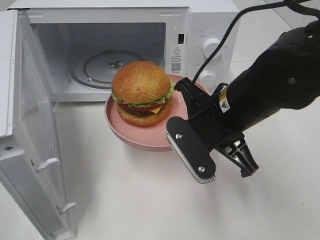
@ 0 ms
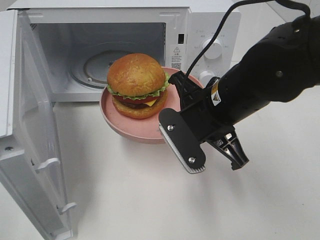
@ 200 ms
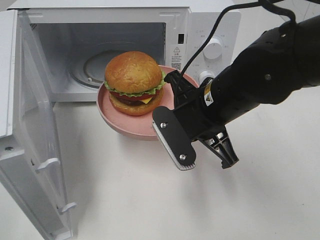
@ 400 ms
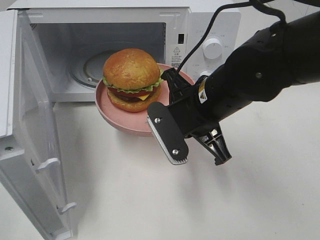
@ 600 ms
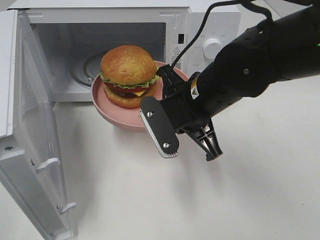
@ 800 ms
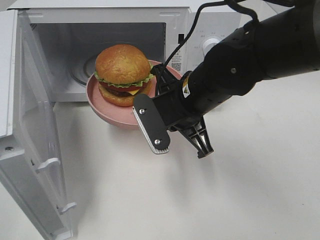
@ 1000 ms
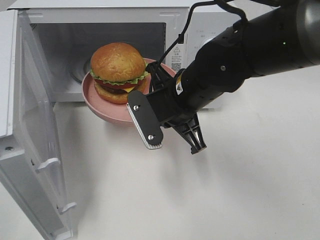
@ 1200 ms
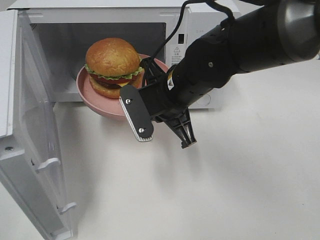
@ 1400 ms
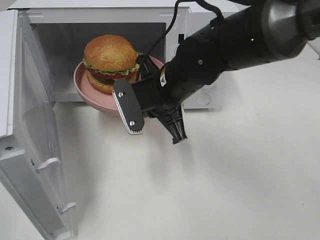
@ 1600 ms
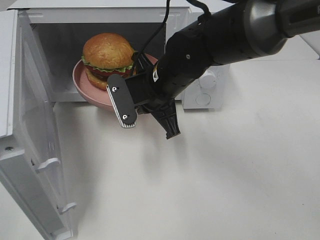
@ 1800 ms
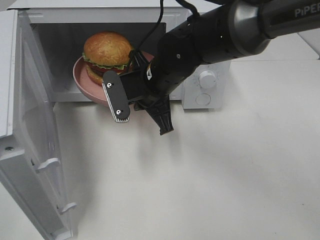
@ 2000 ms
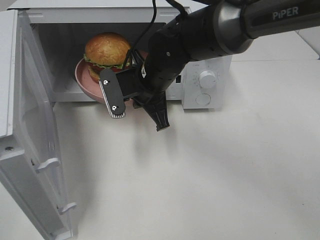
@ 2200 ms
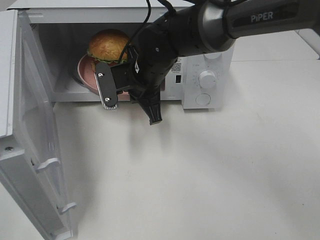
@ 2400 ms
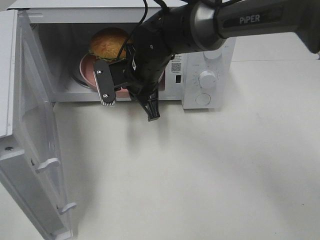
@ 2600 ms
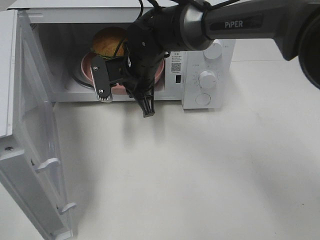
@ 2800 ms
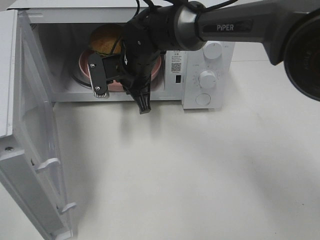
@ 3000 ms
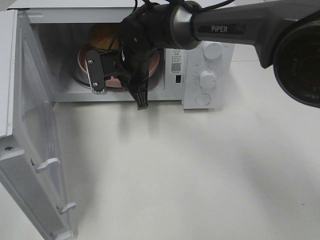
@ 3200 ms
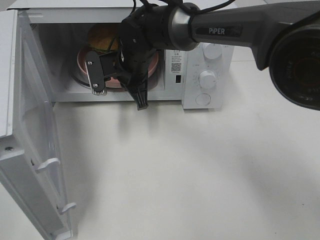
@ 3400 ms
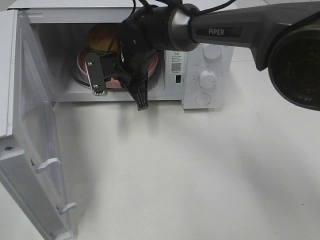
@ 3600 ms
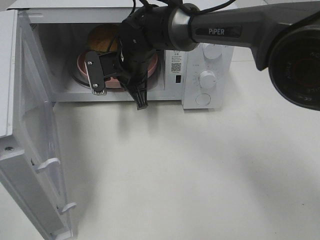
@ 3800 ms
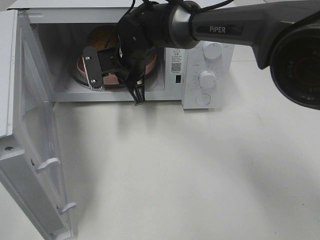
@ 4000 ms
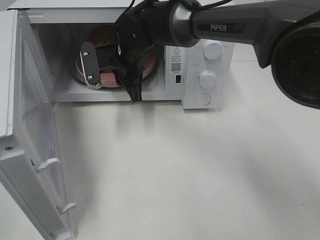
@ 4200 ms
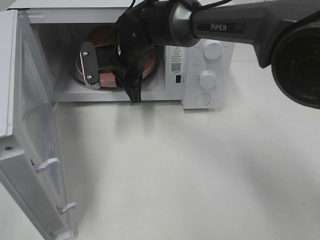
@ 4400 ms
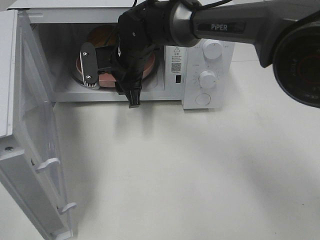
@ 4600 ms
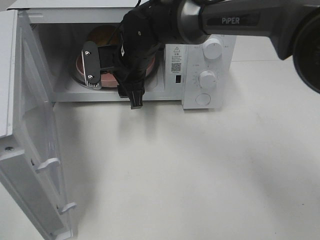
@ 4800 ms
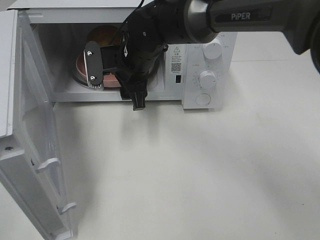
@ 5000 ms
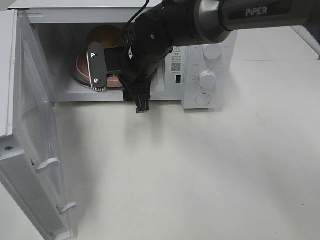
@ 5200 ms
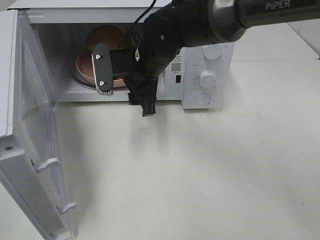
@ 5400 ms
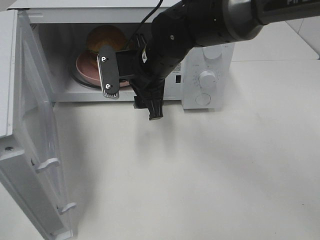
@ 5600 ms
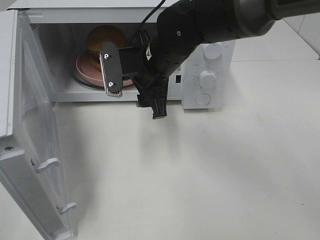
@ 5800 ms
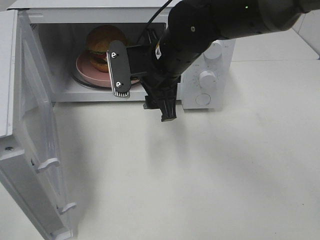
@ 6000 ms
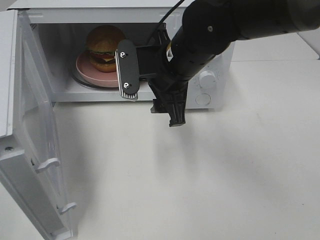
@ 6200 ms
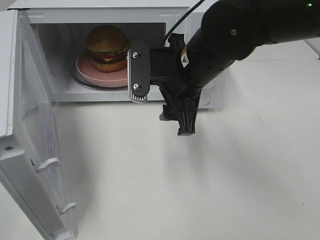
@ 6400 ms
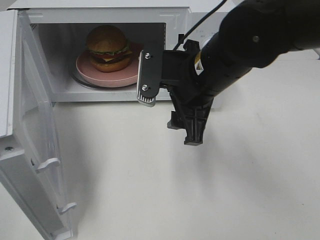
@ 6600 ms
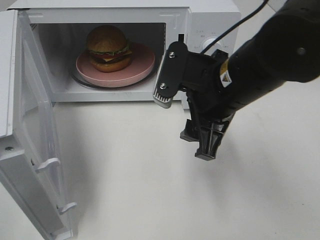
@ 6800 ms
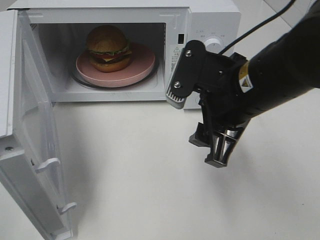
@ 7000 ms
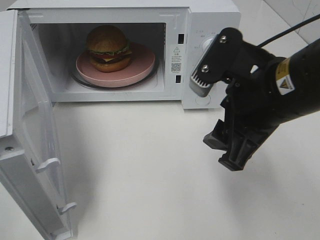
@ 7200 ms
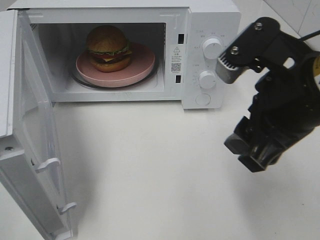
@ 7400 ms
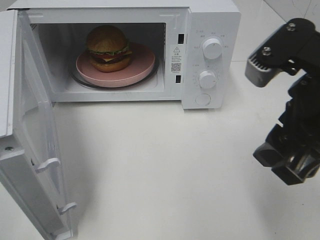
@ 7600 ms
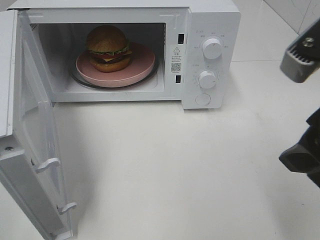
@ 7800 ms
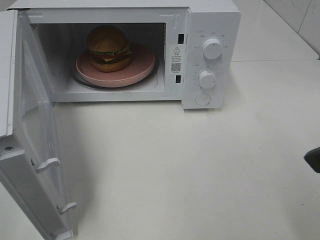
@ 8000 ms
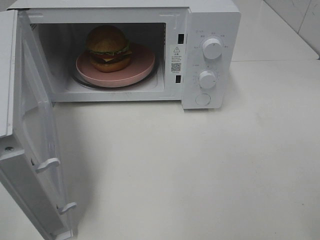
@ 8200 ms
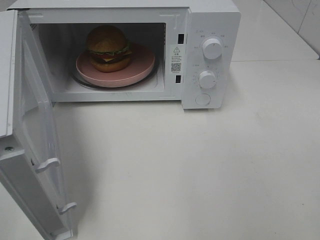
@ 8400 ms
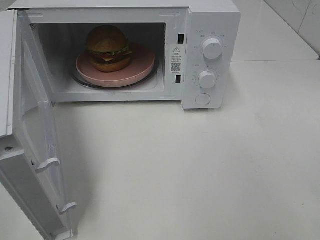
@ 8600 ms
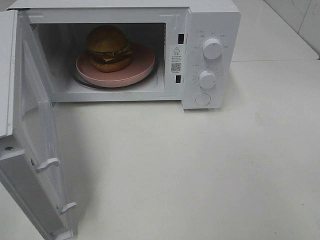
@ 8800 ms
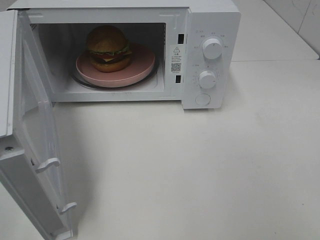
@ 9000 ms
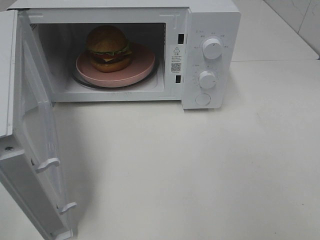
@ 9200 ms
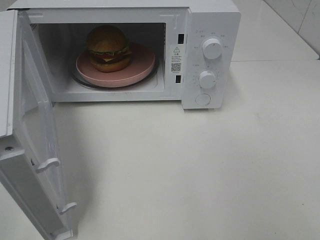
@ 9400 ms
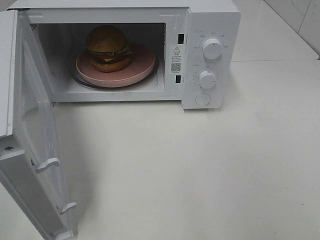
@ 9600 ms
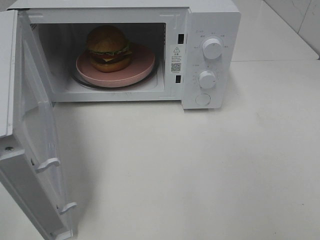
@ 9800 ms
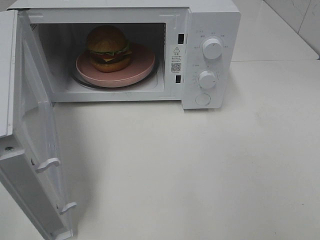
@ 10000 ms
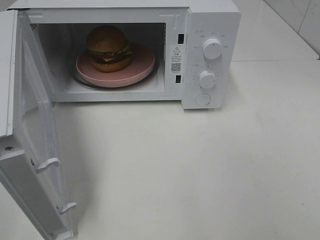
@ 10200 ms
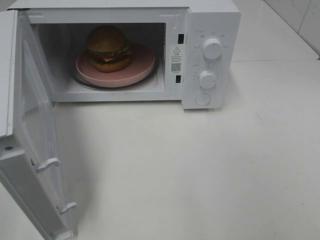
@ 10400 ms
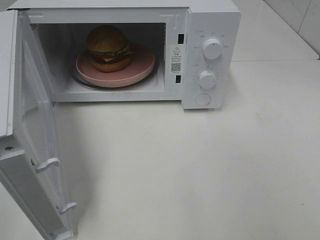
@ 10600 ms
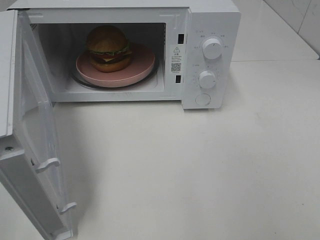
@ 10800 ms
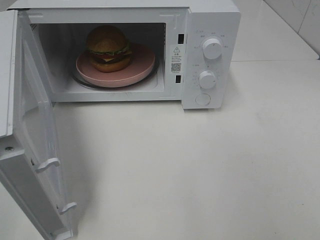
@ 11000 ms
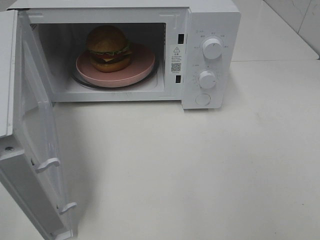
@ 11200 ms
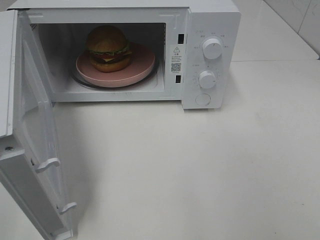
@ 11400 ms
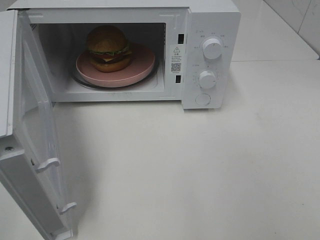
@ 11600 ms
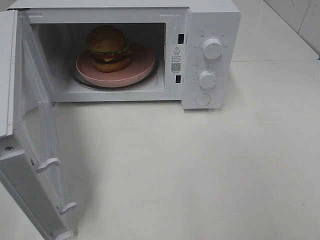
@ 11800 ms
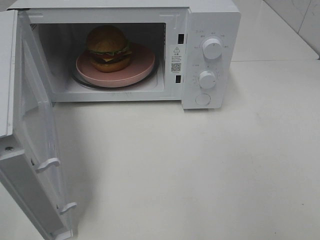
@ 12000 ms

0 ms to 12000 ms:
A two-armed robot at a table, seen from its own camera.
Task of the whole recording: Heat the burger.
Step, 0 ms to 4200 ms: Right hand: place the plate in the microwave.
0 ms to 1600 ms: The right gripper shifts some 10 cm forward and to the left.
1600 ms to 3000 ms: The right gripper heads forward and to the left, covering about 10 cm.
3000 ms to 4400 ms: The right gripper opens.
4400 ms to 6000 ms: The right gripper shifts approximately 10 cm backward and to the right, and opens.
6000 ms to 7600 ms: The right gripper is displaced backward, to the right and upward by about 25 cm.
7600 ms to 9000 ms: The right gripper shifts approximately 15 cm to the right and backward.
10400 ms to 12000 ms: Both grippers stay put.

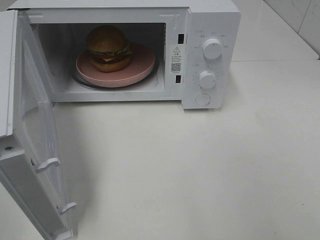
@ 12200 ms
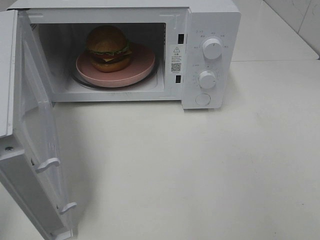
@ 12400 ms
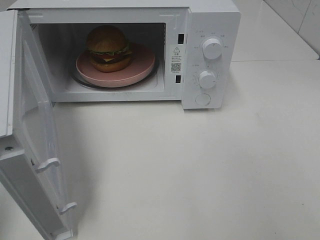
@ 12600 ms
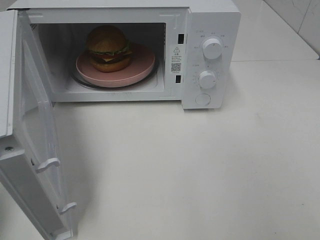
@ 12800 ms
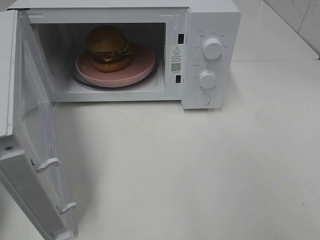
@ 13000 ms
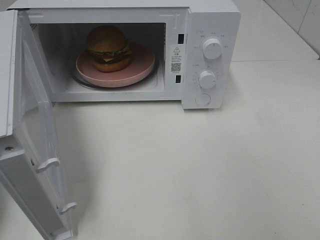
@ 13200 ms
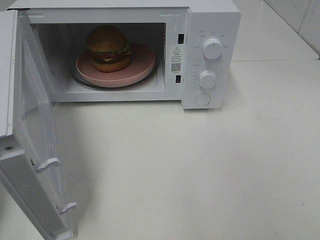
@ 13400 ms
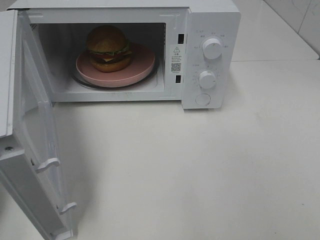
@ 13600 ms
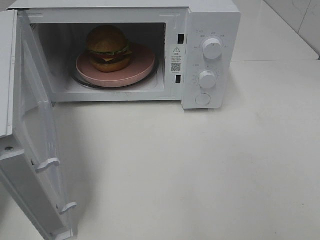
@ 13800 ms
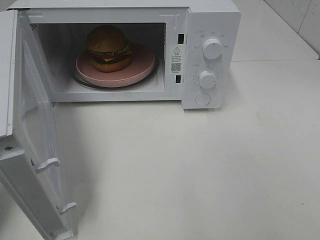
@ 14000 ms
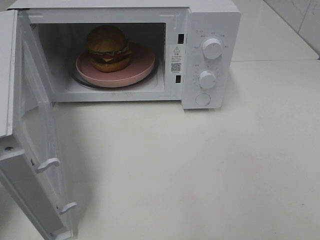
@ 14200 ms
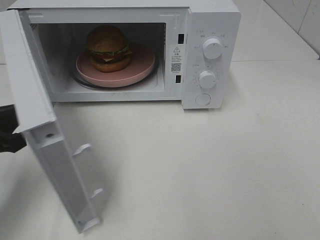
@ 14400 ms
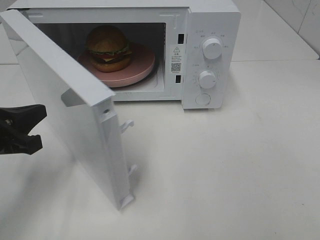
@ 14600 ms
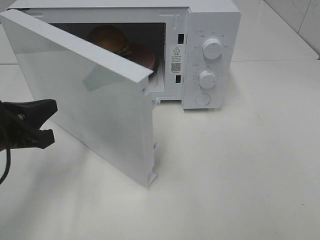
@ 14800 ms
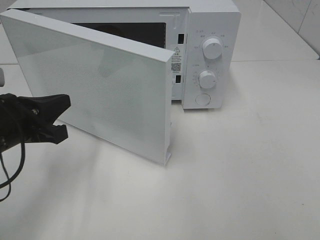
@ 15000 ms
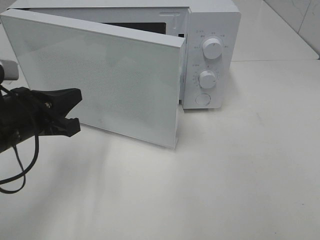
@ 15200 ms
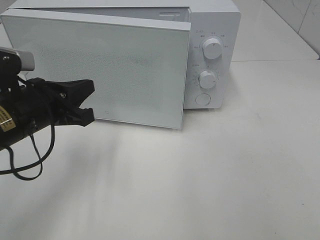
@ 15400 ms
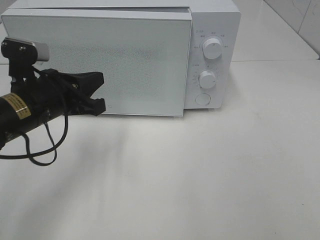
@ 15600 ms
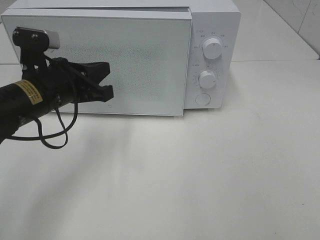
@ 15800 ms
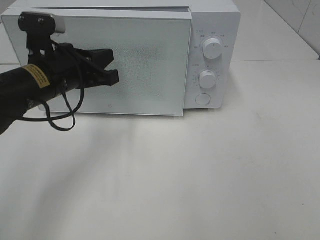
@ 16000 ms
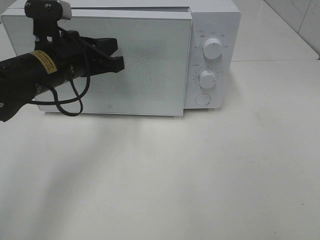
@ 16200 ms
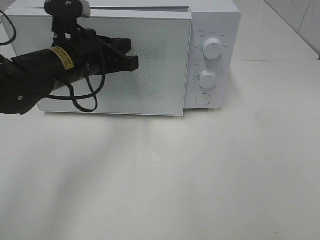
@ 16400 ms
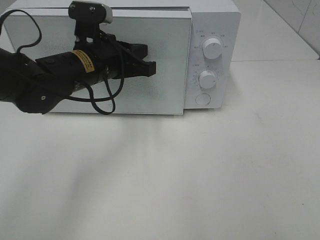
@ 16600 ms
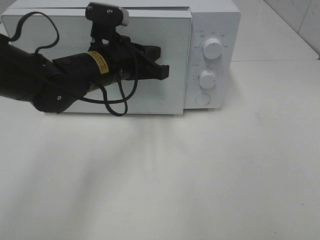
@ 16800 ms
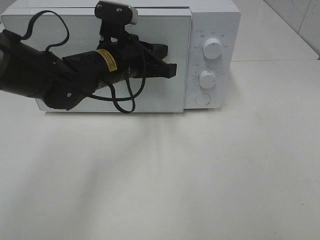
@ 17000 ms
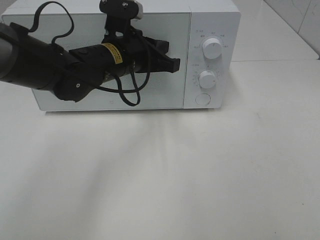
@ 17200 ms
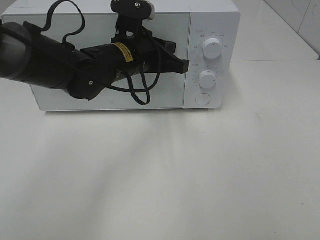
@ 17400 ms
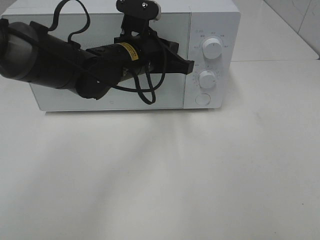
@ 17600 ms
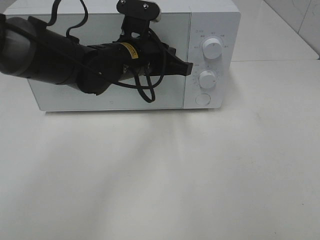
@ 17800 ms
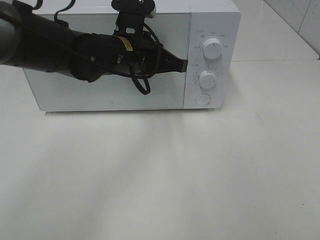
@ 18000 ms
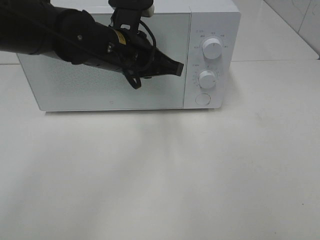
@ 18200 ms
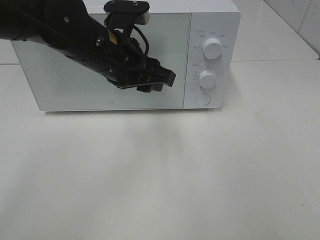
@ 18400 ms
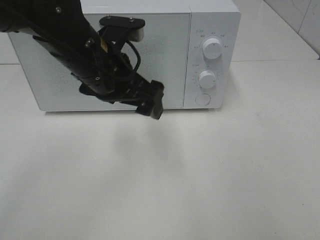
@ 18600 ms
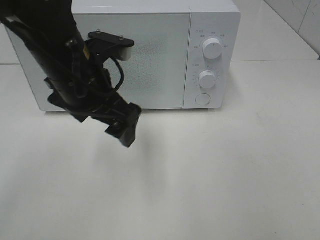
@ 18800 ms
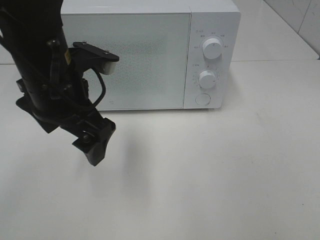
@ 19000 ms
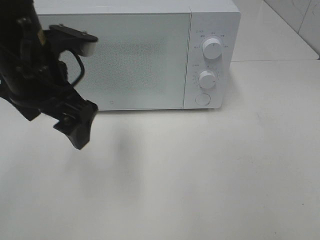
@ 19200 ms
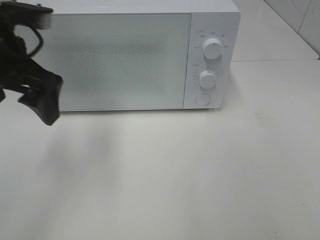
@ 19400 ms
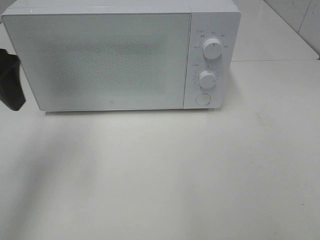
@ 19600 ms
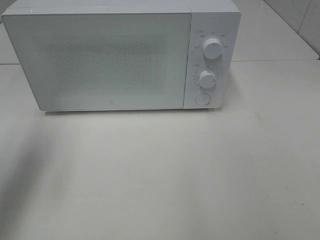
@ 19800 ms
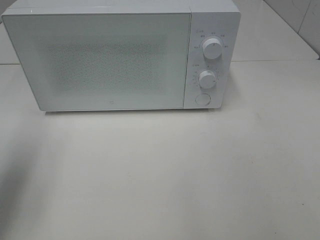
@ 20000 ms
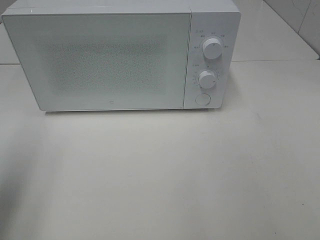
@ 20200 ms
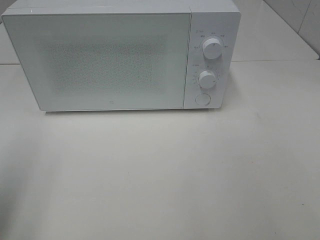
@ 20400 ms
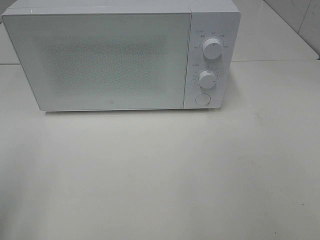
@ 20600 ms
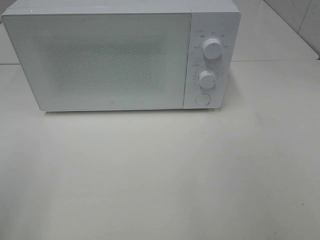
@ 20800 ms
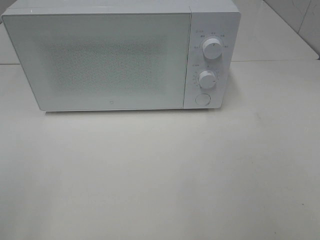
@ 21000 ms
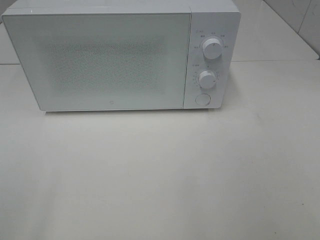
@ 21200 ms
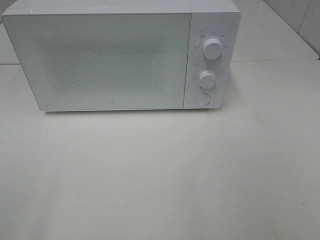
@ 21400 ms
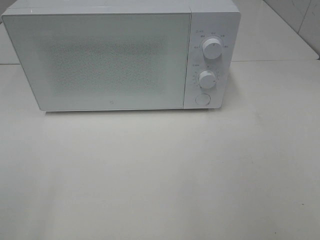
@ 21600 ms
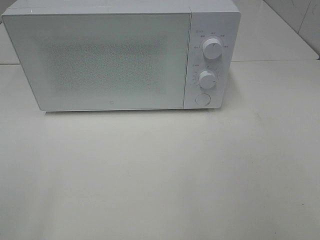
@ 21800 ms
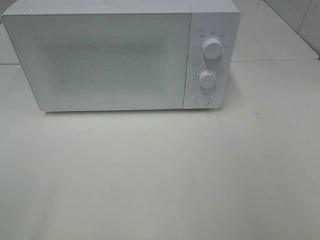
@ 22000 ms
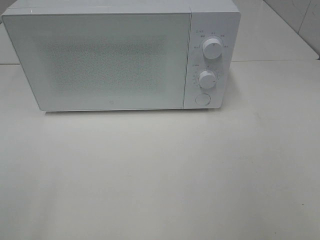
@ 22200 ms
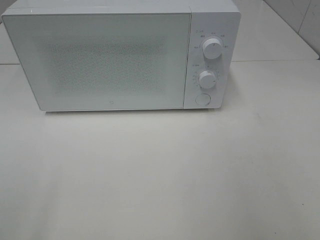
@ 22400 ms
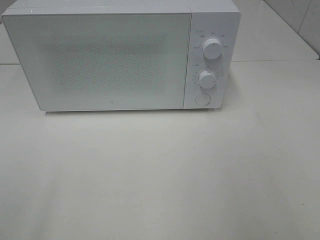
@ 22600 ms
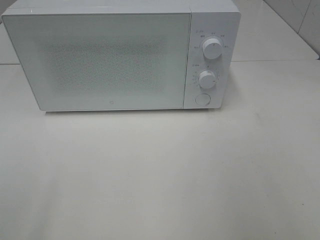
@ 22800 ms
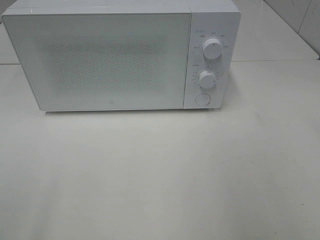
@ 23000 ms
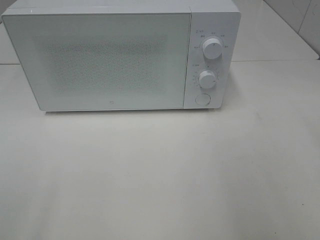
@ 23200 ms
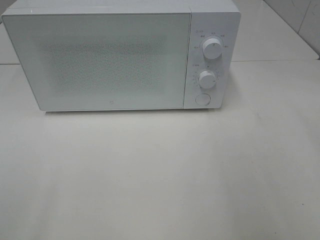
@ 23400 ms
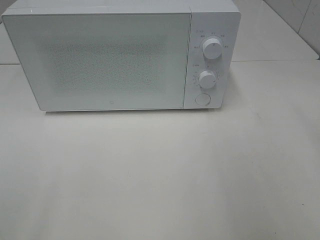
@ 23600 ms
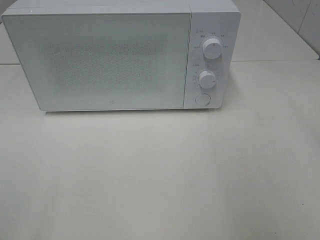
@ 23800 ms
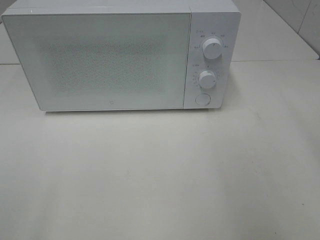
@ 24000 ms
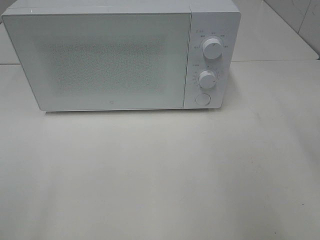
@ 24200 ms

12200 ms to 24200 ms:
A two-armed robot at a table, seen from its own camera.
Task of the whole recording: Heat the burger.
Step, 12200 ms to 17800 ms: Left hand: close the microwave door.
13800 ms to 15200 ms: The left gripper goes about 15 cm to the right, forward and downward.
15200 ms to 16600 ms: The left gripper moves to the right and forward, roughly 15 cm.
16600 ms to 18200 ms: The left gripper moves approximately 5 cm.
18200 ms to 19800 ms: The left gripper heads to the left, covering approximately 25 cm, and opens.
19800 ms to 21200 ms: The left gripper travels backward by some 25 cm.
